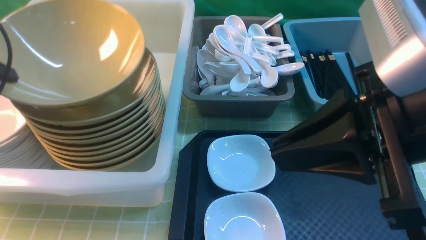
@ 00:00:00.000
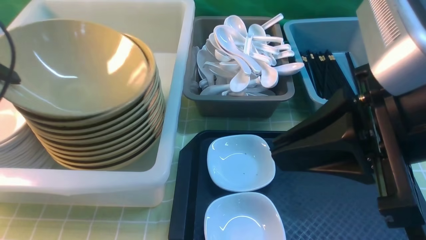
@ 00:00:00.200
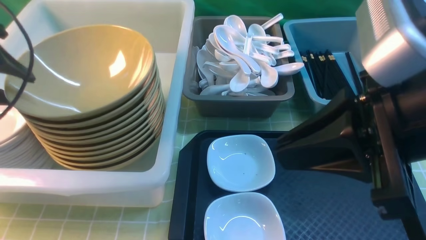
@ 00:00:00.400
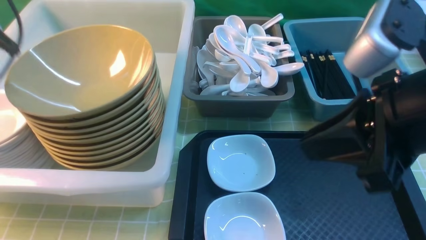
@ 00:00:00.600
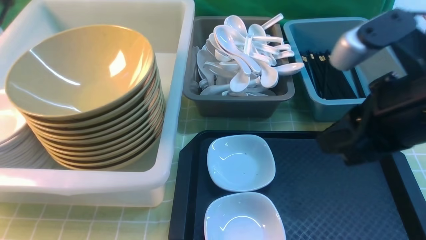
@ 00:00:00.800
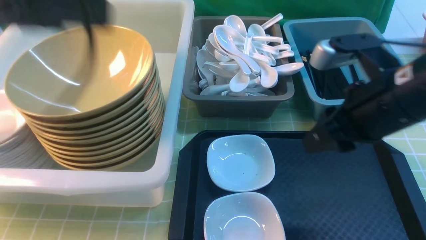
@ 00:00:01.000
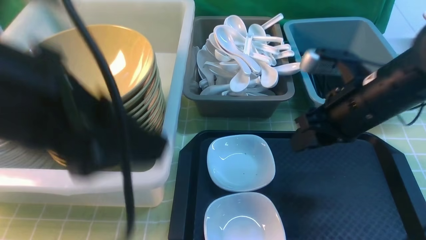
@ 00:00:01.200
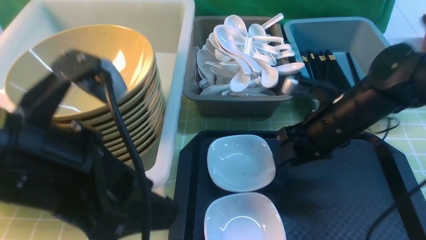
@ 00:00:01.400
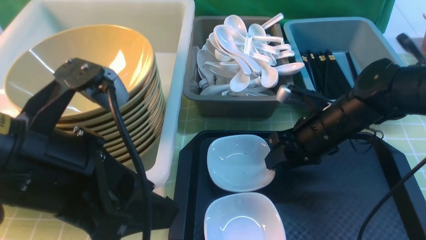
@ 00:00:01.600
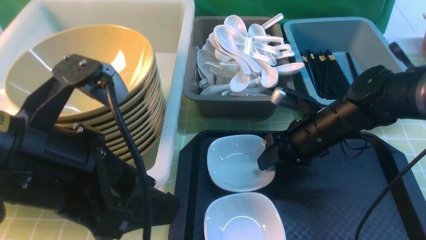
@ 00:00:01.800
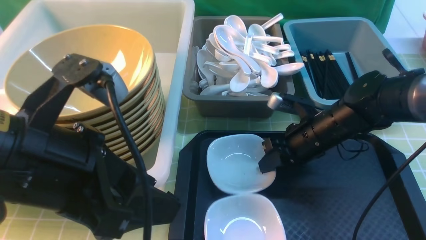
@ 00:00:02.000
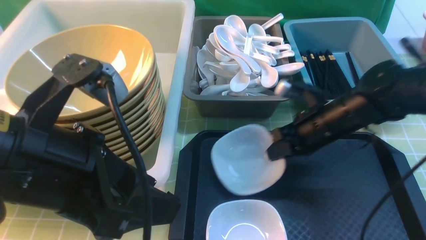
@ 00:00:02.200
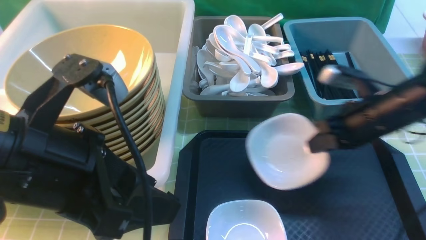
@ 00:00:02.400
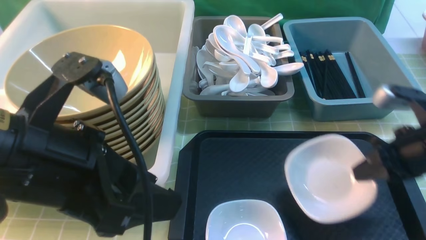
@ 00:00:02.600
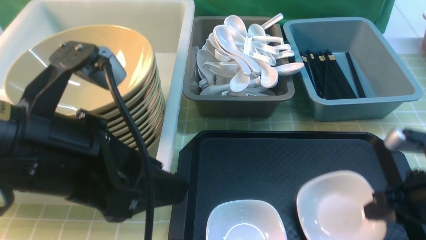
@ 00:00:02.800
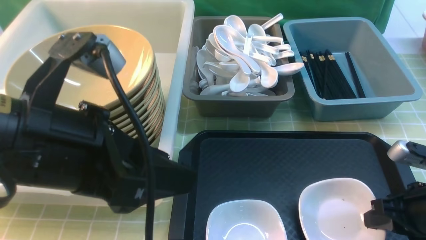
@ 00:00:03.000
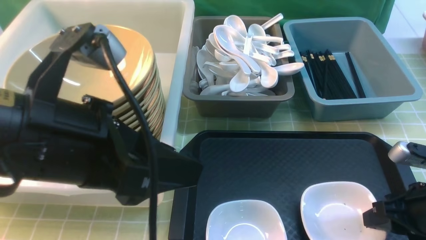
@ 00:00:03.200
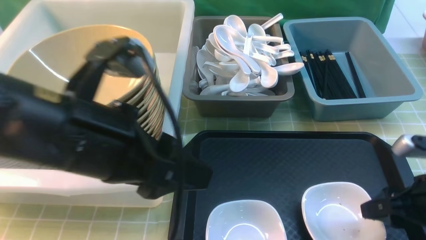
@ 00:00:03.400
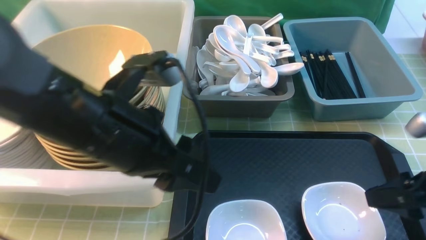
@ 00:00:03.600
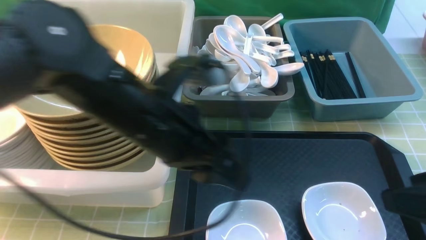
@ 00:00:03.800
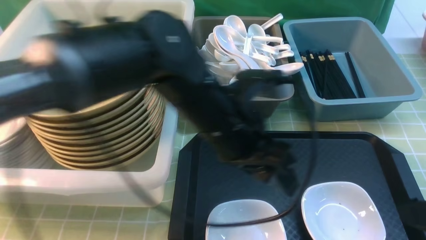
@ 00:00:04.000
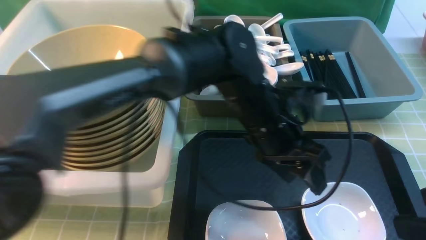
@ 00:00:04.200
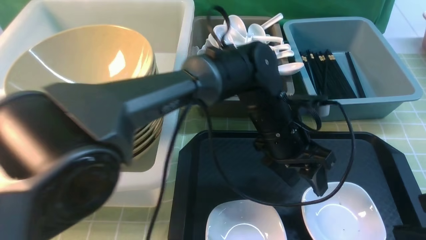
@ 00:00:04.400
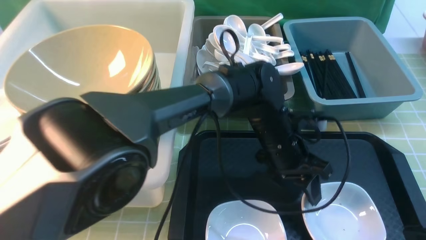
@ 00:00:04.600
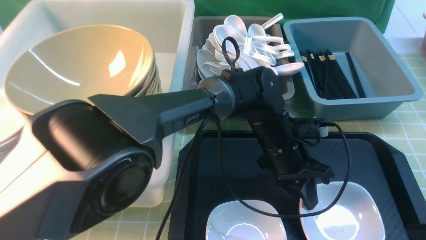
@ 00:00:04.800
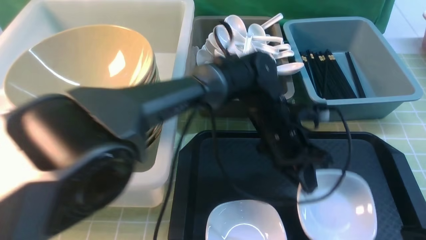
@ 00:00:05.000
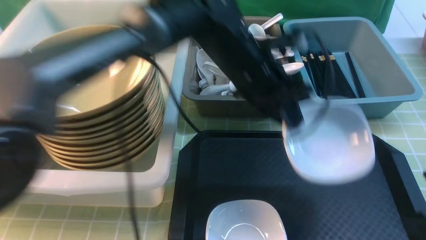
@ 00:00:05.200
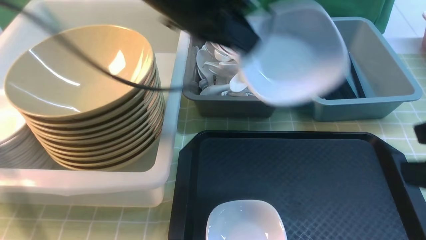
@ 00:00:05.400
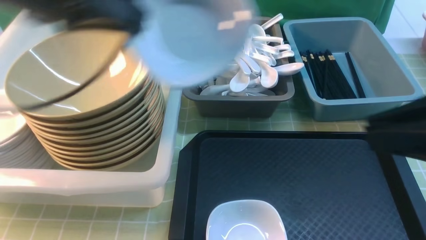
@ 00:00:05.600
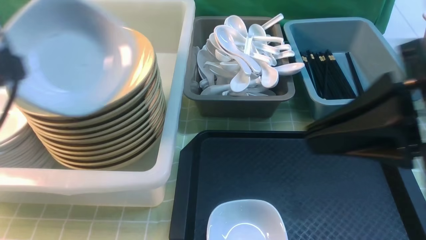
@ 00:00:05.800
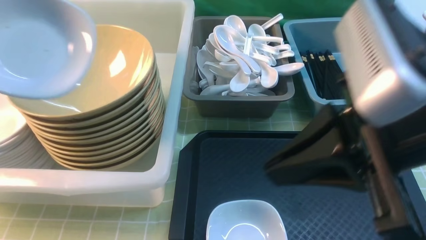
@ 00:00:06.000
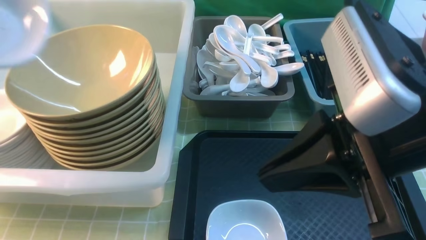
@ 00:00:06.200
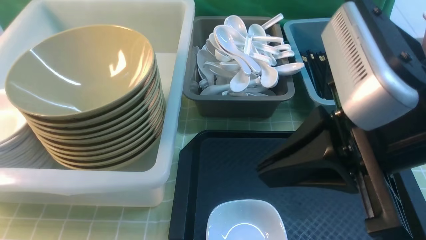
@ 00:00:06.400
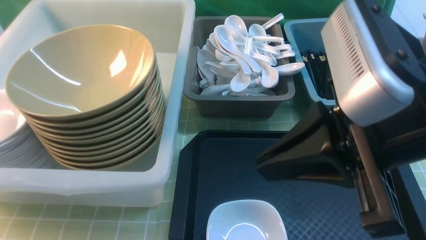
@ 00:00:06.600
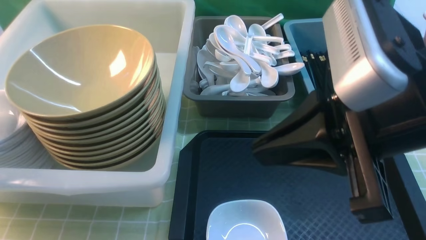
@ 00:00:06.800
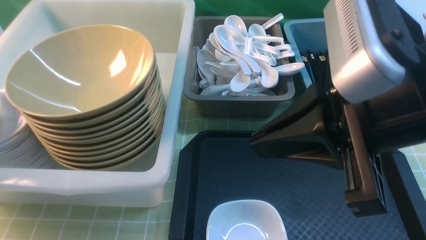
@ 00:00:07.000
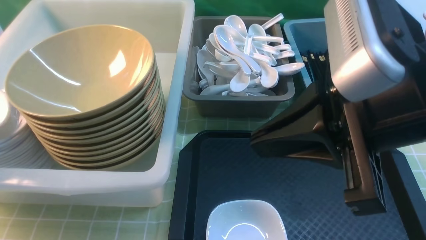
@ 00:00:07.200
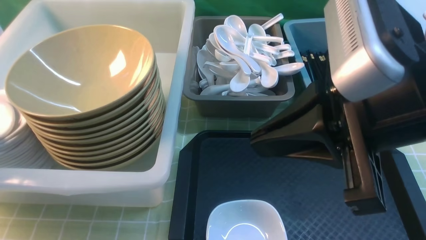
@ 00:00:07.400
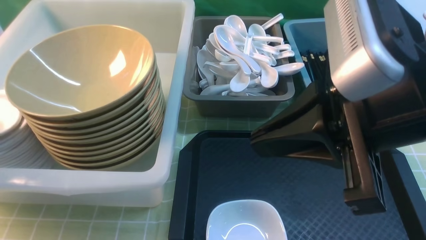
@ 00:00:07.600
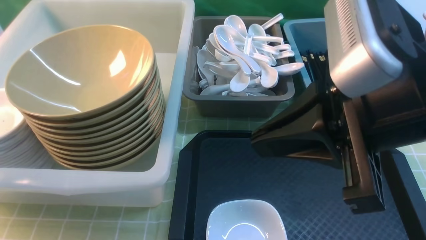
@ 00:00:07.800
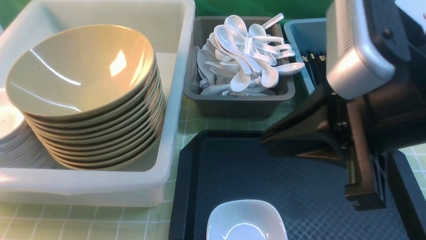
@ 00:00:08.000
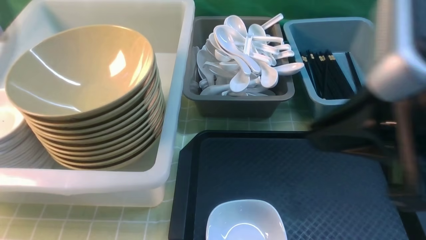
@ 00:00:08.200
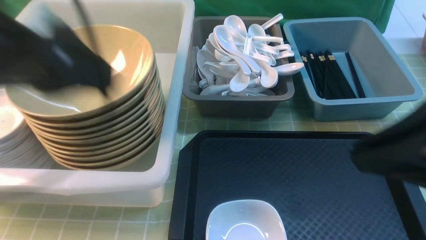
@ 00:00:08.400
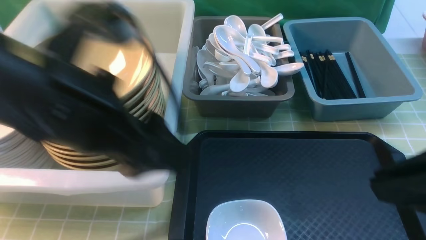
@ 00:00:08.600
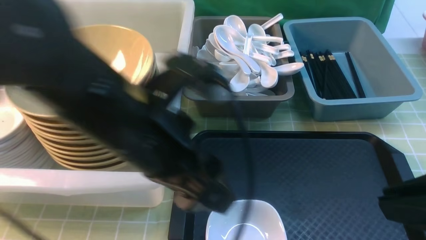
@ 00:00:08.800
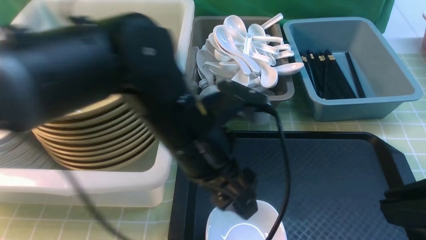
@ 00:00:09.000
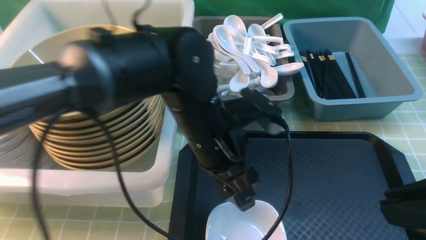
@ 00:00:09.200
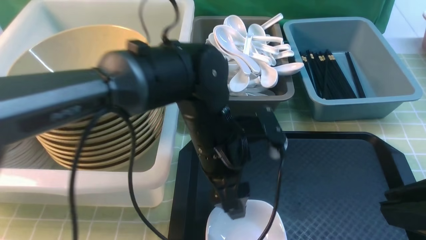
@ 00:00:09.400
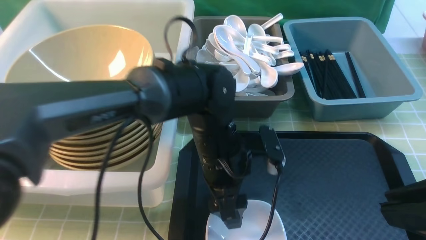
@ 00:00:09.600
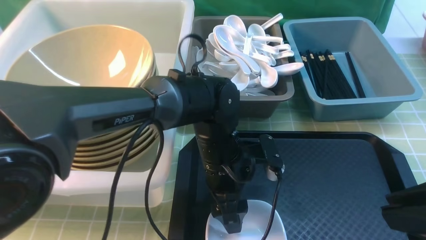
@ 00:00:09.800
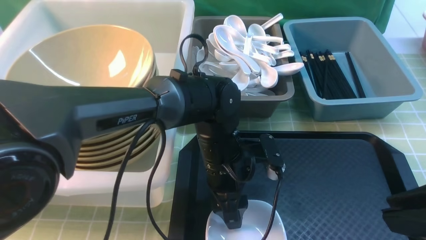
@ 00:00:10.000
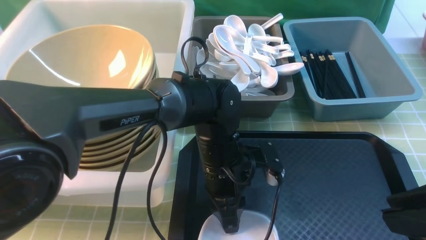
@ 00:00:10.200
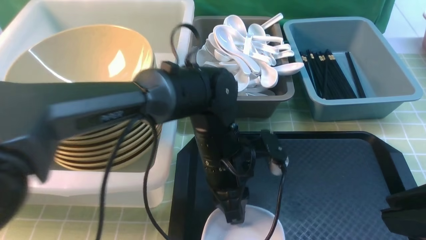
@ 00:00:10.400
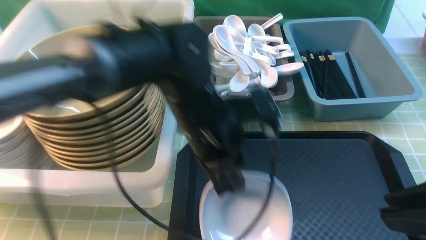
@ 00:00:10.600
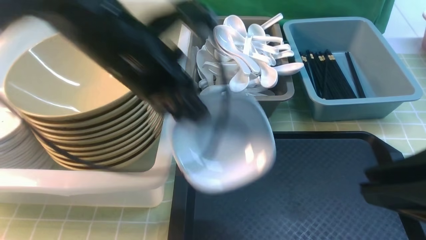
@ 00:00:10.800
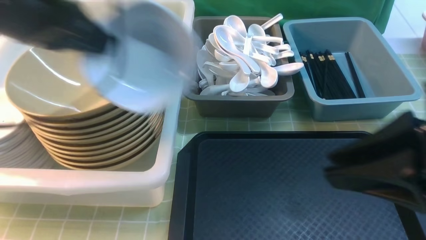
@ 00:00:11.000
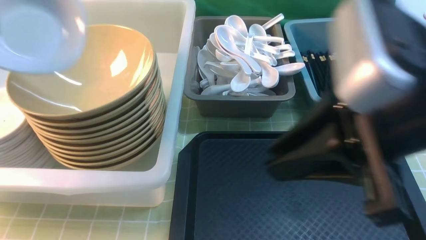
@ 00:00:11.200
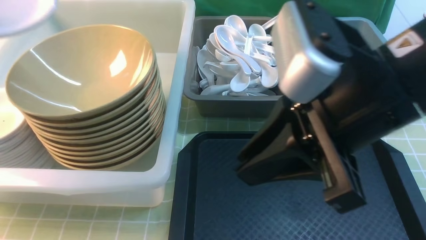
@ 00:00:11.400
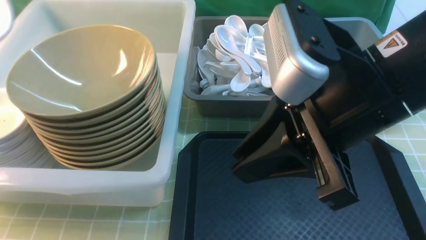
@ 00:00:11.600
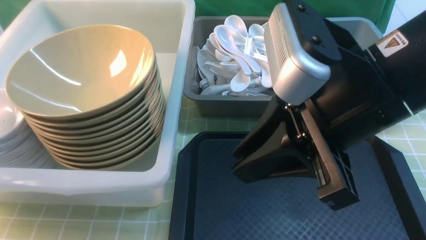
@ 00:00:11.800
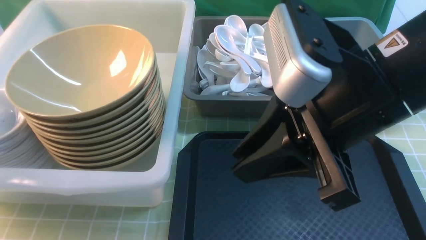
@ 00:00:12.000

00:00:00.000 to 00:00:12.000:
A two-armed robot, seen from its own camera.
Task of the whole recording: on green table put chopsticks spoon bowls plates into blue grey white boxes.
Step, 00:00:00.800 to 00:00:02.200: use the right arm to grab the plate.
Step, 00:00:02.400 to 00:00:03.600: use the right arm to put the plate on the tray.
Step, 00:00:03.800 to 00:00:05.000: use the left arm to grab the plate.
Step, 00:00:05.400 to 00:00:08.000: use the left arm to put the plate into the large storage box on the left.
Step, 00:00:08.400 to 00:00:10.600: use the left arm to grab the plate.
00:00:00.000 to 00:00:01.600: The left gripper is displaced to the right and backward by about 25 cm, and opens. Meanwhile the right gripper is displaced downward and forward by some 30 cm, and opens.
00:00:01.600 to 00:00:03.000: The right gripper goes approximately 20 cm backward and to the right, and closes up.
00:00:03.000 to 00:00:04.400: The left gripper is displaced to the right, forward and downward by approximately 30 cm. Meanwhile the right gripper goes some 15 cm upward and backward, and opens.
00:00:04.400 to 00:00:06.000: The right gripper is displaced to the left, upward and forward by about 15 cm, and closes up. The left gripper travels to the left and upward by approximately 40 cm, and closes up.
00:00:06.000 to 00:00:07.600: The left gripper shifts some 15 cm to the left and downward, and opens.
00:00:07.600 to 00:00:09.000: The left gripper travels to the right by about 35 cm. Meanwhile the right gripper is displaced to the right and backward by roughly 10 cm.
00:00:09.000 to 00:00:10.400: The left gripper goes approximately 10 cm downward, and closes.
00:00:10.400 to 00:00:12.000: The left gripper heads to the left, covering approximately 40 cm, while the right gripper shifts approximately 15 cm to the left and forward.

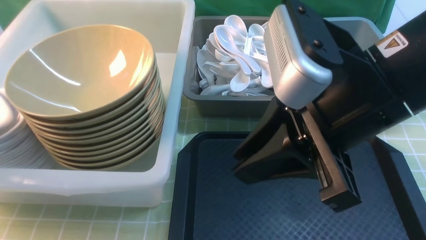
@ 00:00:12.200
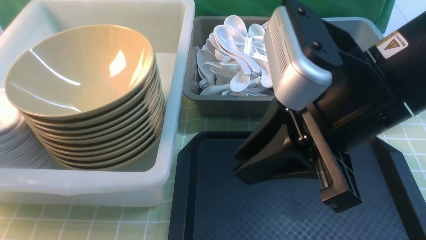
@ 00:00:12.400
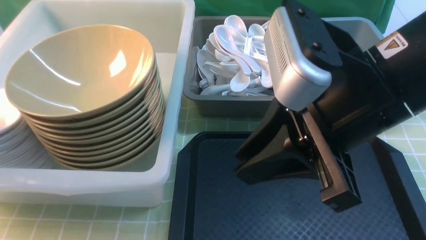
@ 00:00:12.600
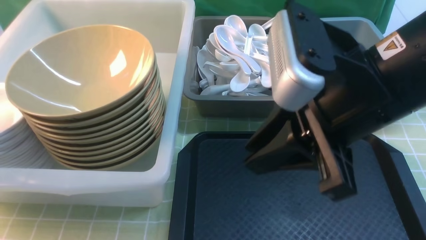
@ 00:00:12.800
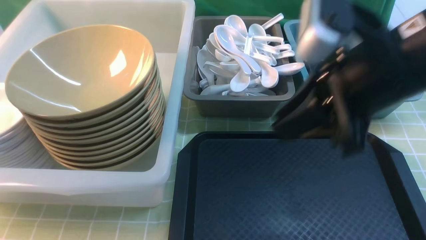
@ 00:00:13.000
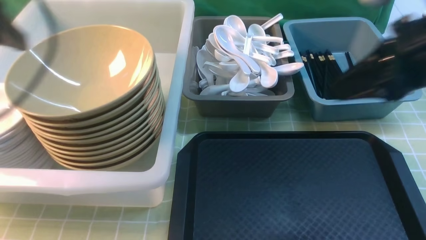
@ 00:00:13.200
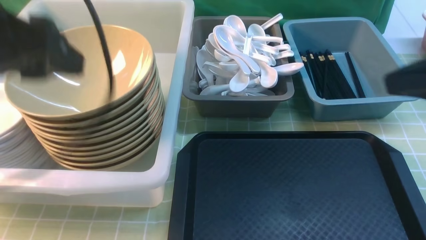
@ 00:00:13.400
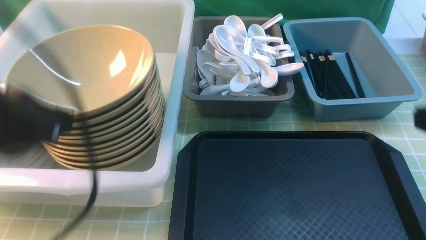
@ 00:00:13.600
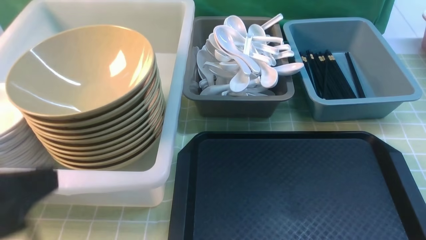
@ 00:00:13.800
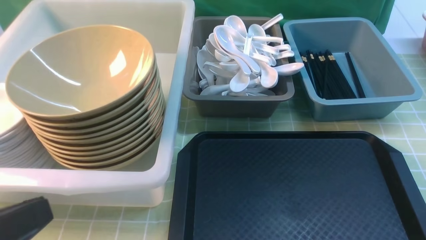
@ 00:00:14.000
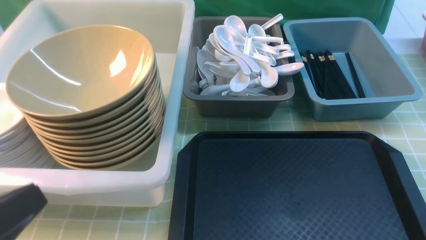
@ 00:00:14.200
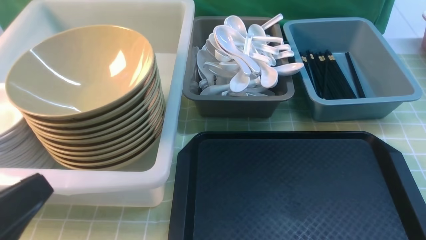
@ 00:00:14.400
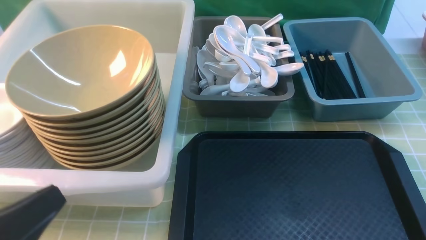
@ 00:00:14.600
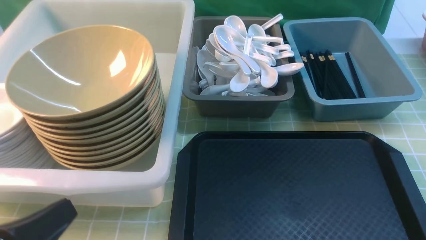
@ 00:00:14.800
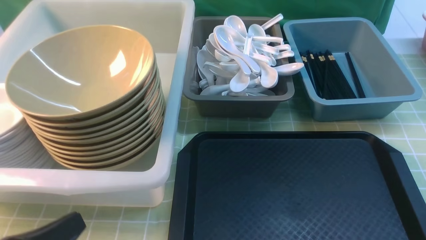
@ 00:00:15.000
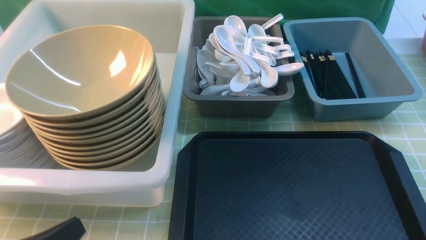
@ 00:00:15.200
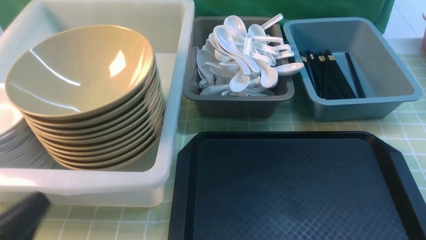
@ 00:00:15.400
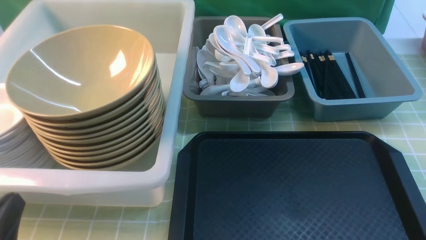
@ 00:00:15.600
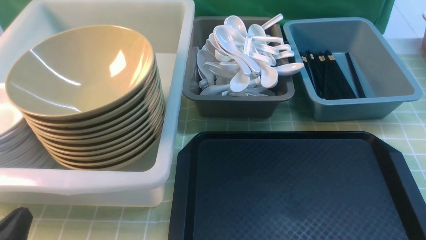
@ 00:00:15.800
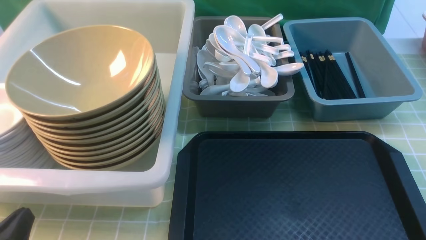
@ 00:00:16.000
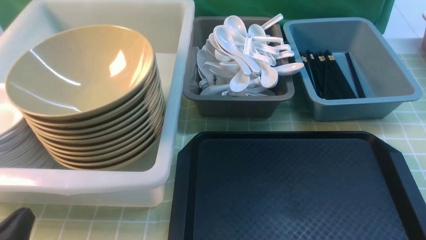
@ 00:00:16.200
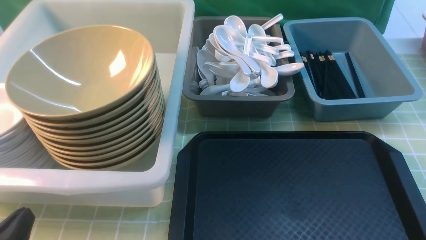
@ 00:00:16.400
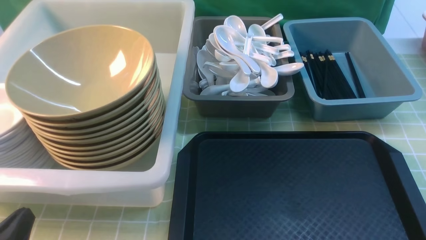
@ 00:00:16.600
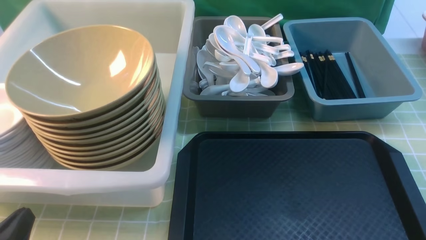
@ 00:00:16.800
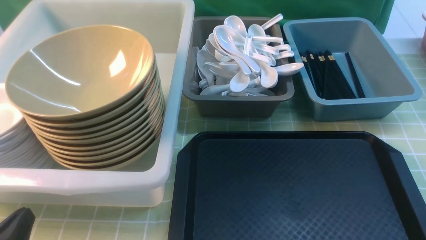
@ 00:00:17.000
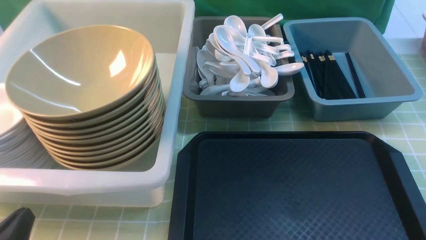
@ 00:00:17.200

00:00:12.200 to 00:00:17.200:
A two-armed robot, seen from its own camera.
Task of the whole recording: on green table put chopsticks spoon bowls plates into blue grey white boxes.
00:00:12.200 to 00:00:13.800: The right gripper shifts approximately 20 cm to the right, backward and downward, while the left gripper shifts approximately 25 cm to the right and backward, and opens, then closes again.
00:00:13.800 to 00:00:15.600: The left gripper travels downward by about 15 cm.
00:00:15.600 to 00:00:17.200: The grippers move only a little.
